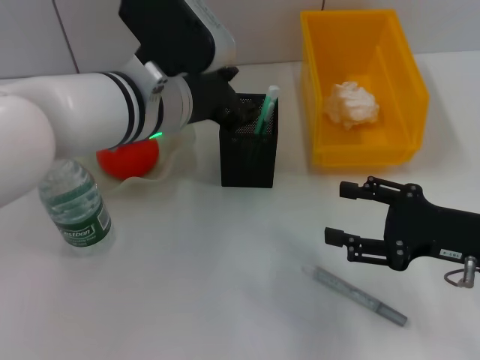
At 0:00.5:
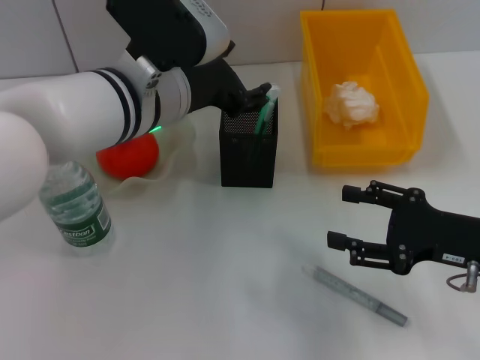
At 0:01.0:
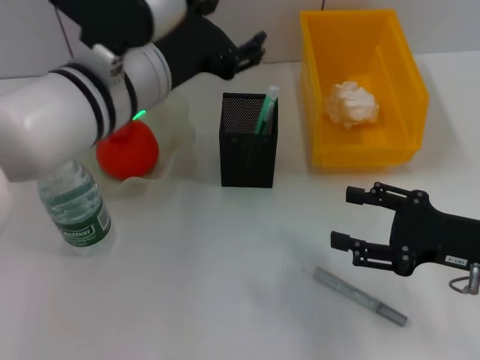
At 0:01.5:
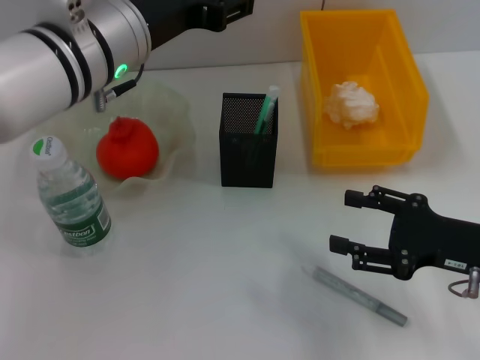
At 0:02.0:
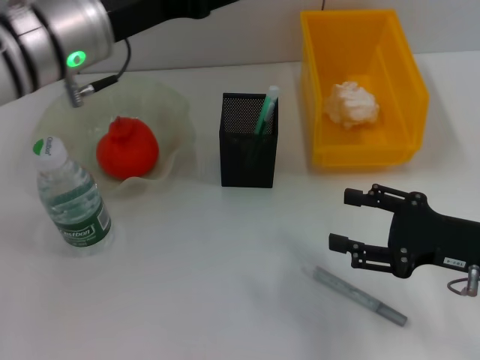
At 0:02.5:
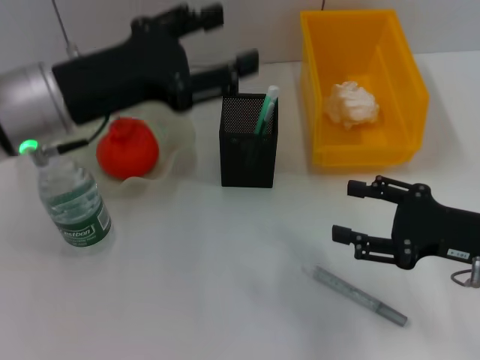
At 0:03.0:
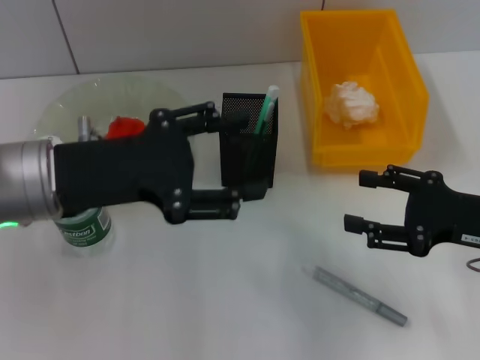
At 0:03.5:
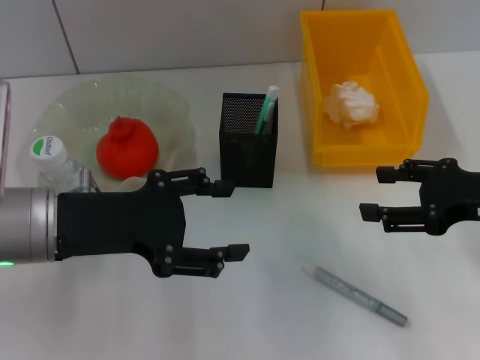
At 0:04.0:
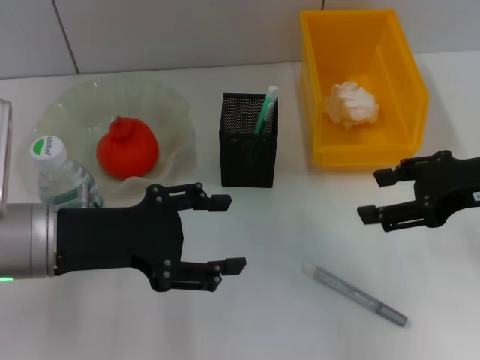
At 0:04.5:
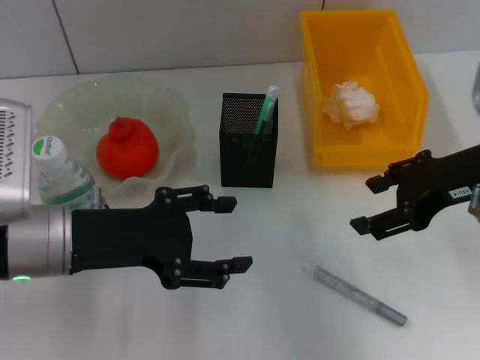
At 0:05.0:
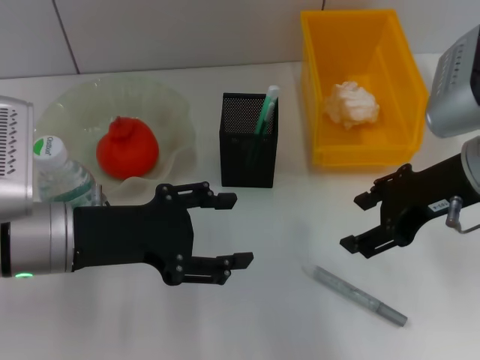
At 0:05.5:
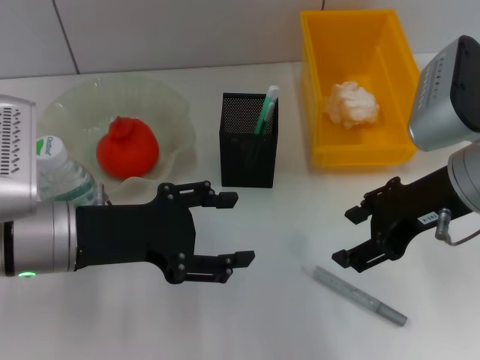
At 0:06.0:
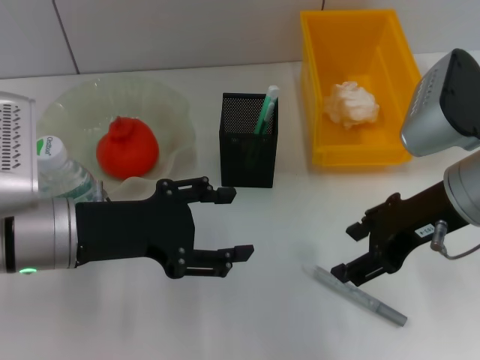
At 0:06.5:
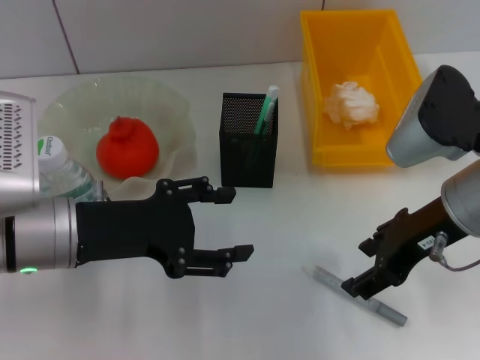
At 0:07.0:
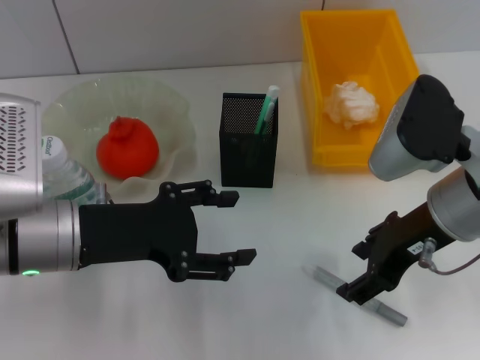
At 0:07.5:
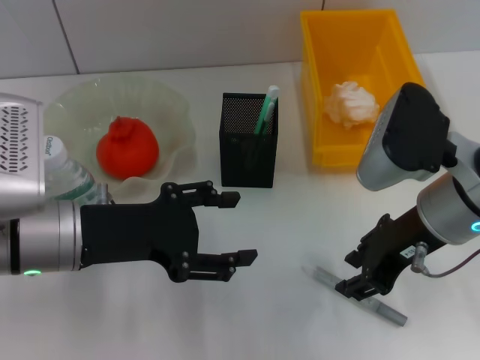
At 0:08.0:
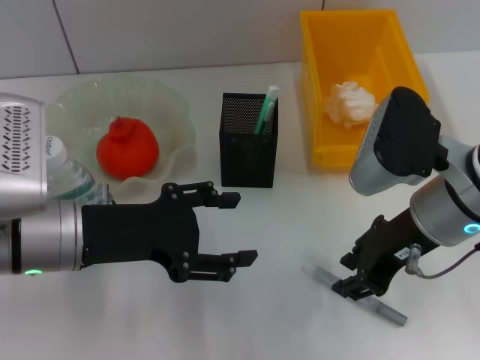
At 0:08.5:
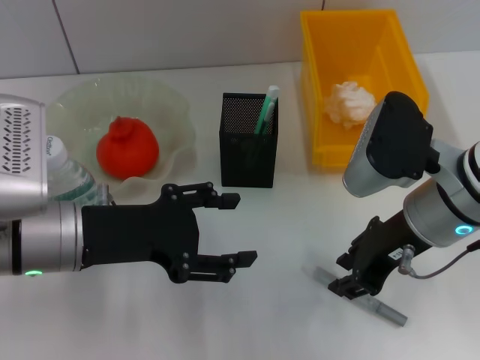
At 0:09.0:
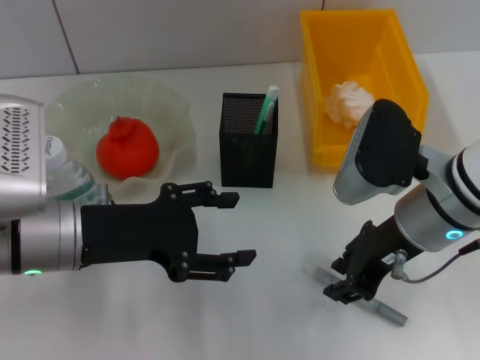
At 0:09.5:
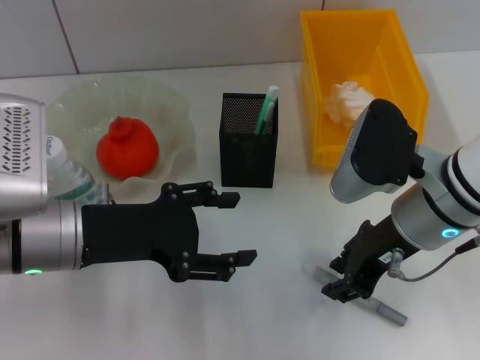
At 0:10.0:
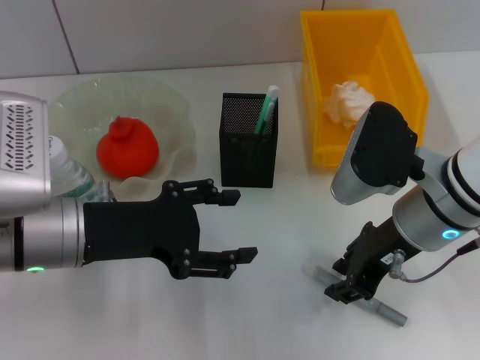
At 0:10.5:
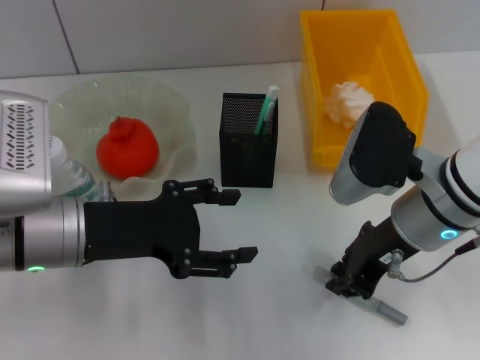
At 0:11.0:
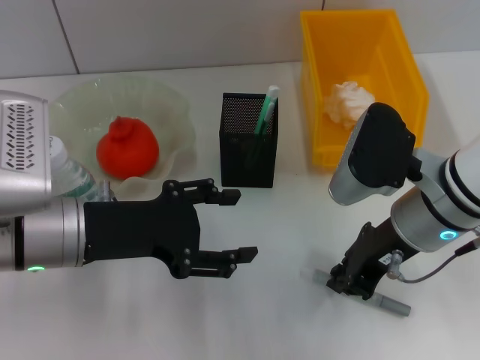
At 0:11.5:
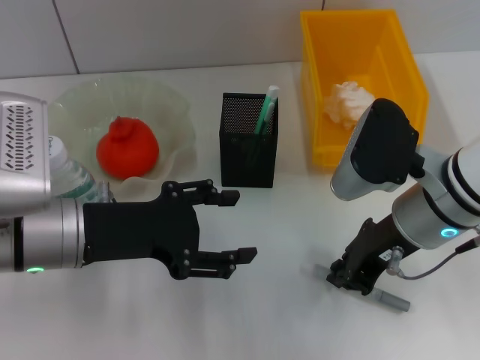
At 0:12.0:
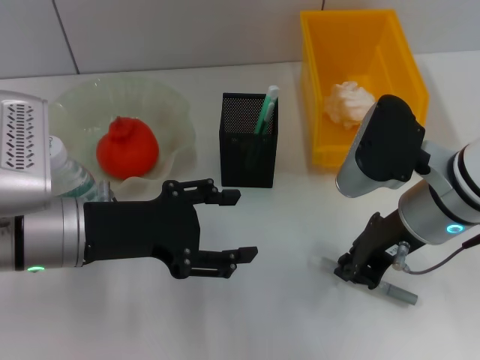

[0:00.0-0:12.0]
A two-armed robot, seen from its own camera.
Step, 0:00.0 to 0:11.5: Grab the gray glue with the right hand.
0:00.0 to 0:02.0: The left gripper heads to the left, covering roughly 5 cm.
0:02.0 to 0:04.0: The left gripper goes roughly 15 cm backward, downward and to the left, while the right gripper shifts about 10 cm upward.
0:04.0 to 0:06.0: The right gripper heads to the left, covering approximately 5 cm.
0:06.0 to 0:08.0: The right gripper closes its fingers.
0:08.0 to 0:10.0: The grippers move only a little.
0:10.0 to 0:12.0: The right gripper closes up.

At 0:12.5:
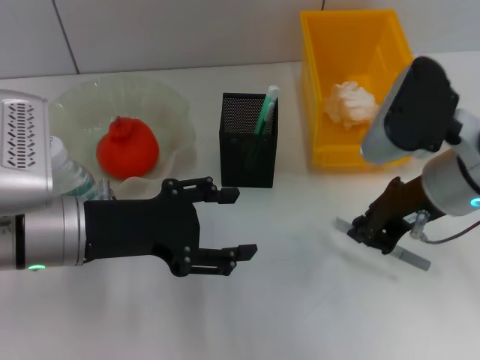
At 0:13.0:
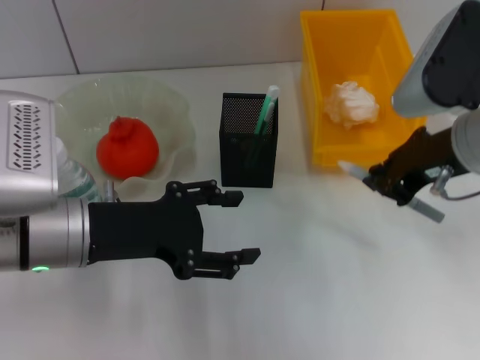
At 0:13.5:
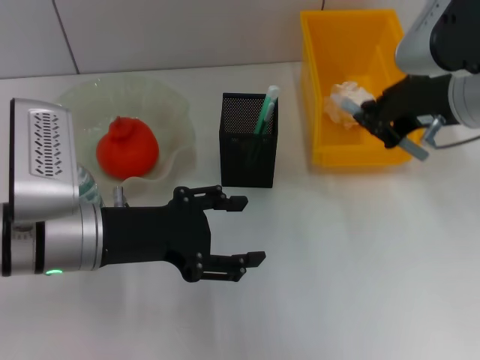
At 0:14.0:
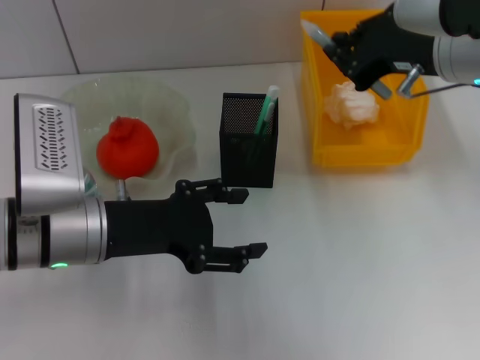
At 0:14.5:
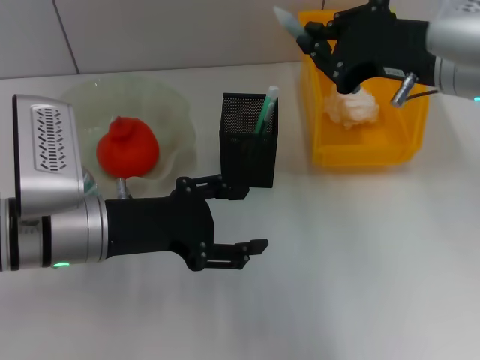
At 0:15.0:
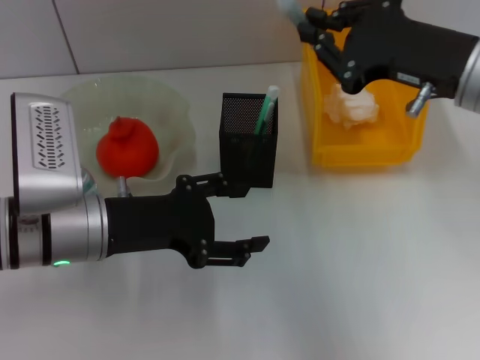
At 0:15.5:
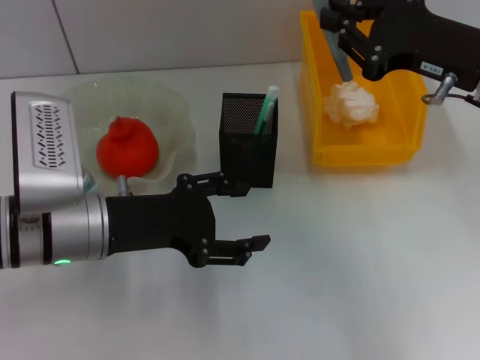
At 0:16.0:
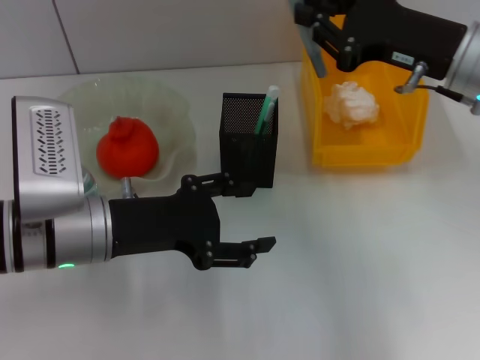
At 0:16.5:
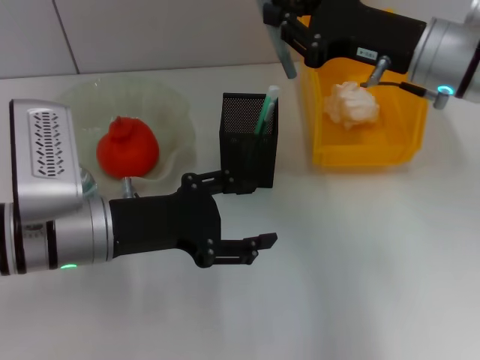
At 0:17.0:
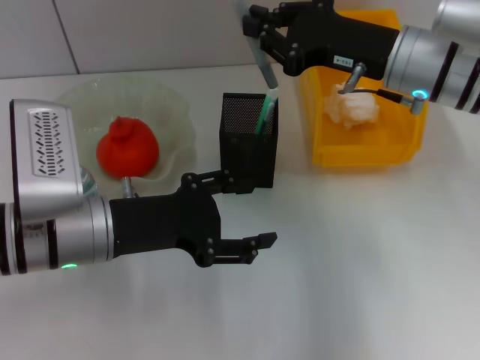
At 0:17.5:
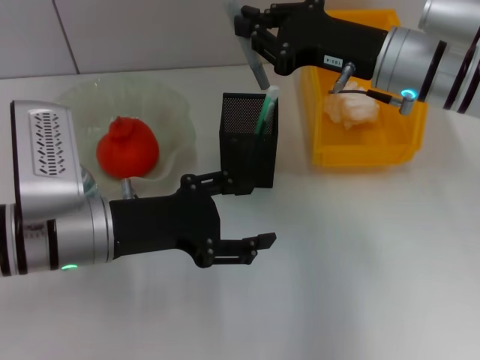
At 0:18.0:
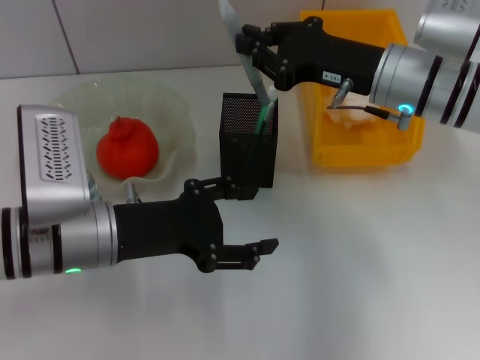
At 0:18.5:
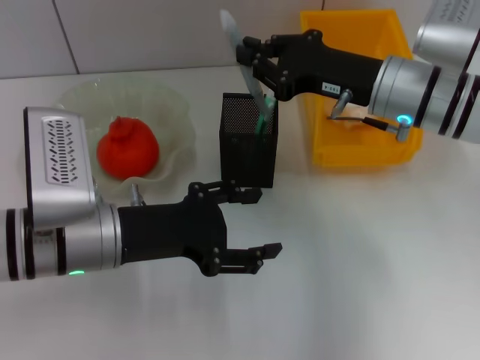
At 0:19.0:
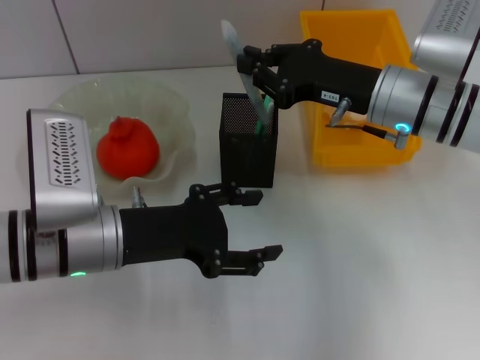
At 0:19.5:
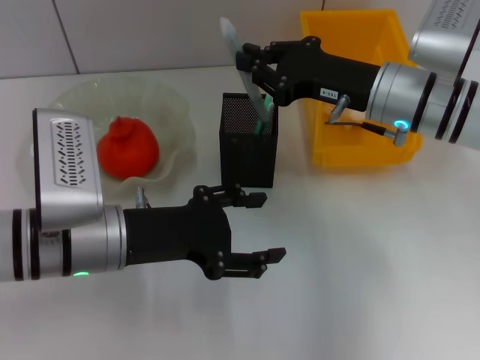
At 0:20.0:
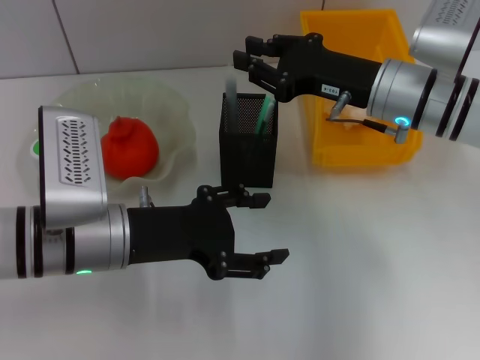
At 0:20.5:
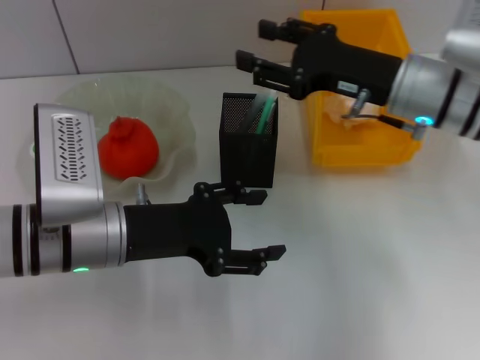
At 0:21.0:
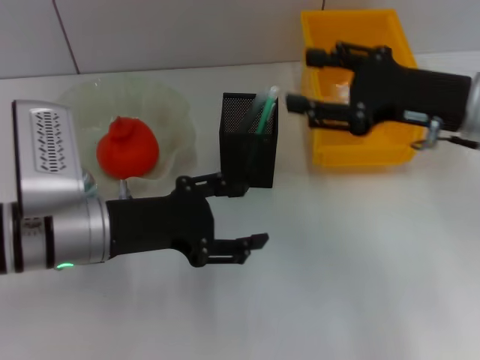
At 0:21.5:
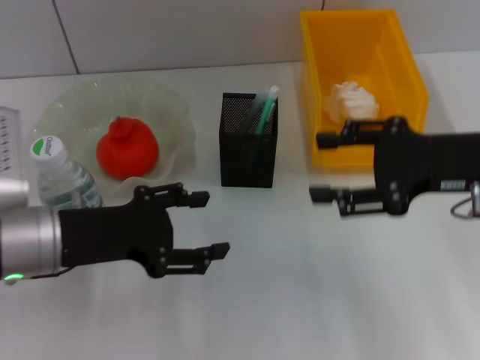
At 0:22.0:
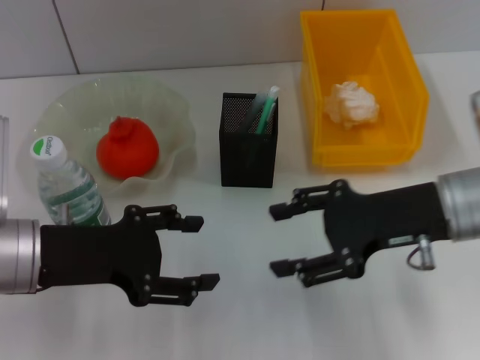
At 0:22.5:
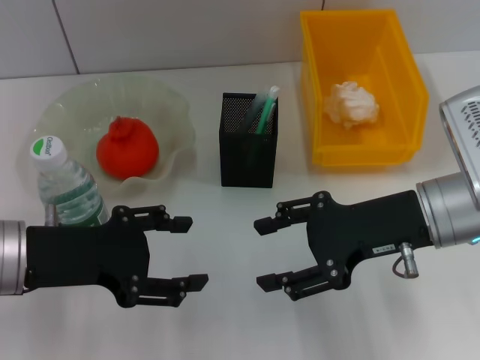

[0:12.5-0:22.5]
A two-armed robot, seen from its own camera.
Step, 0:12.5 to 0:20.5: Place the gray glue into the pen holder with the right hand.
0:12.5 to 0:14.5: The right gripper travels upward by roughly 5 cm.
0:14.5 to 0:16.5: The right gripper travels forward by about 5 cm.
0:18.5 to 0:20.5: The right gripper opens its fingers.
0:20.5 to 0:22.5: The left gripper moves to the left, about 5 cm, while the right gripper shifts approximately 10 cm backward, and opens.

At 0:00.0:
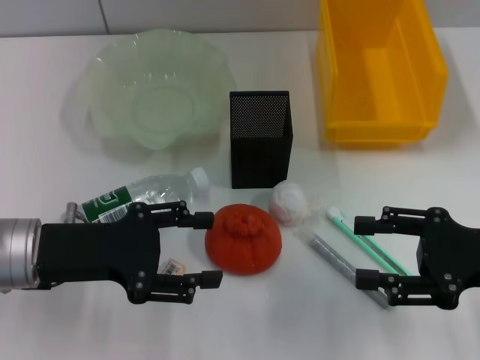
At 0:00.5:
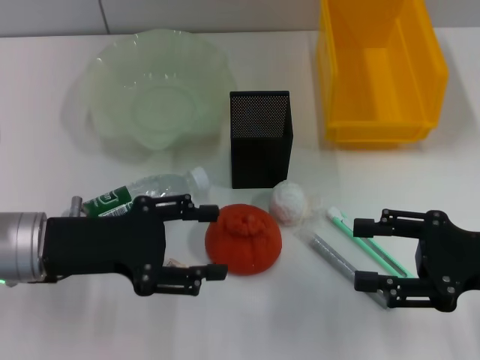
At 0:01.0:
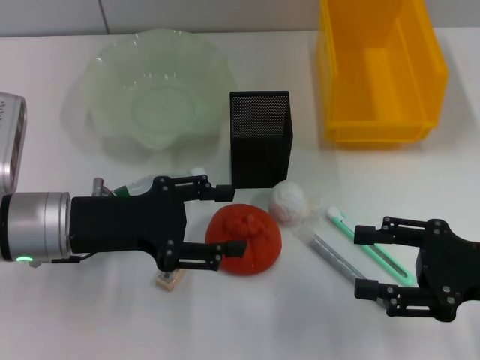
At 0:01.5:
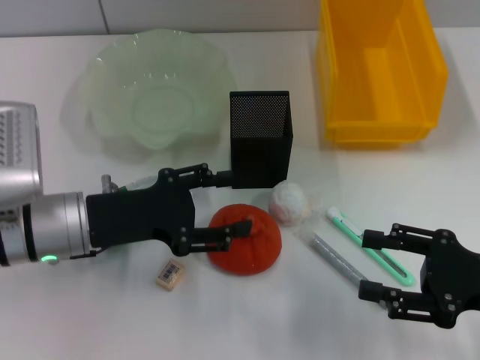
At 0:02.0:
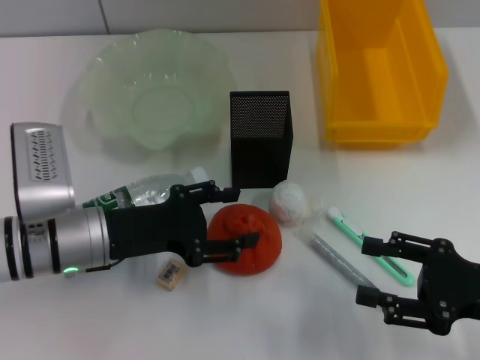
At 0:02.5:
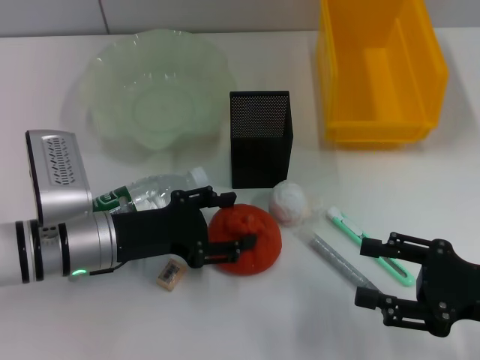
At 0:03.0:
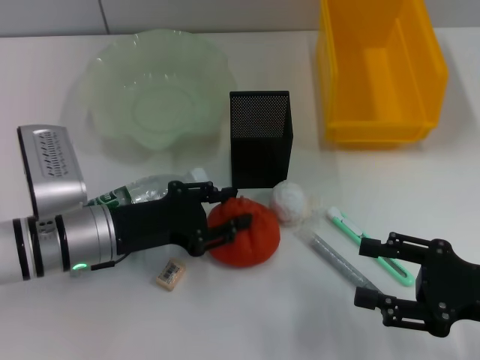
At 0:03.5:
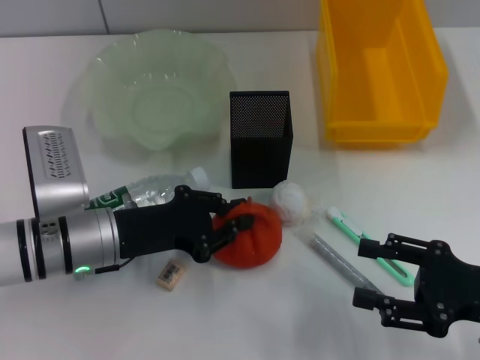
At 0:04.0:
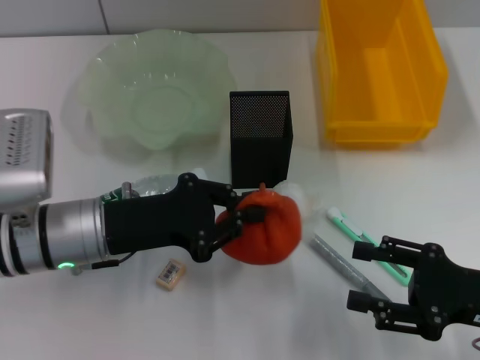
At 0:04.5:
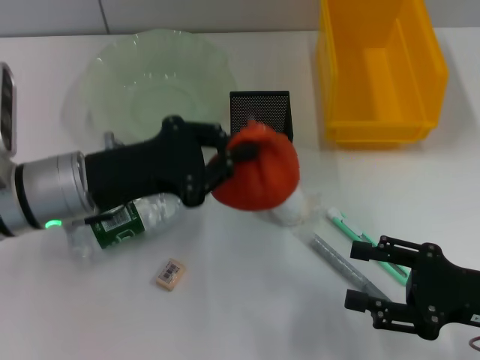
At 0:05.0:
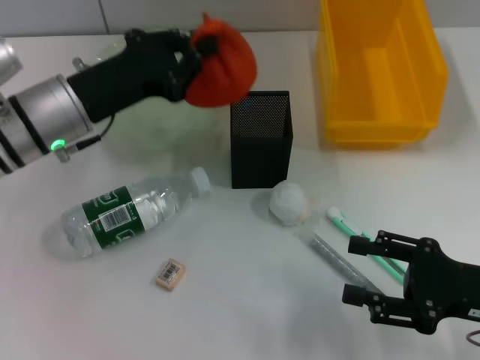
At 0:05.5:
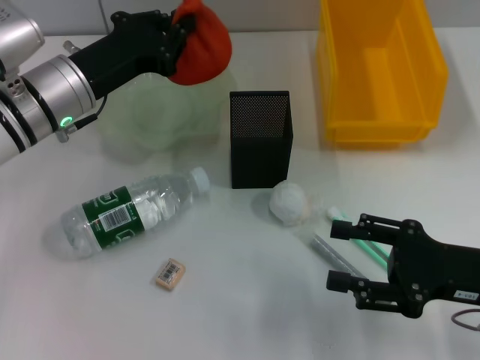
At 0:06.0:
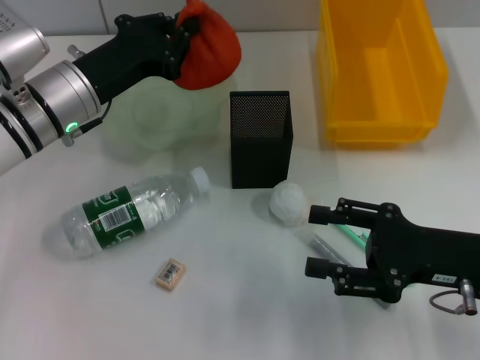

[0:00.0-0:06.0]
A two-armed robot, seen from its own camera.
Step, 0:00.0 to 0:03.0: Grab the orange with the left hand.
0:00.0 to 0:02.0: The left gripper moves approximately 5 cm. The right gripper ends up roughly 5 cm from where it was.
0:02.0 to 0:04.0: The left gripper closes its fingers.
0:04.0 to 0:06.0: The right gripper moves about 5 cm. The left gripper is displaced forward by approximately 10 cm.
